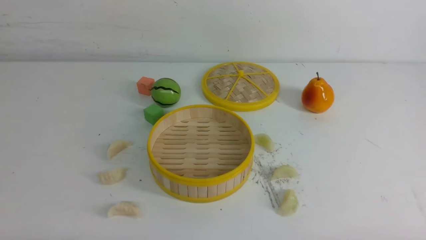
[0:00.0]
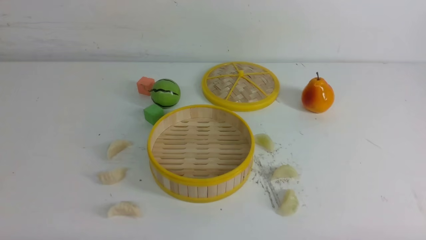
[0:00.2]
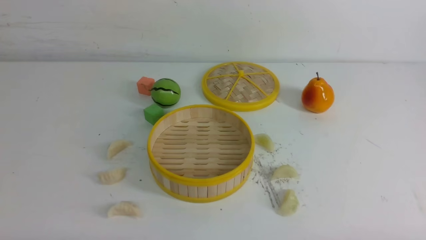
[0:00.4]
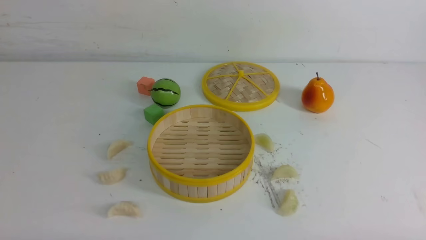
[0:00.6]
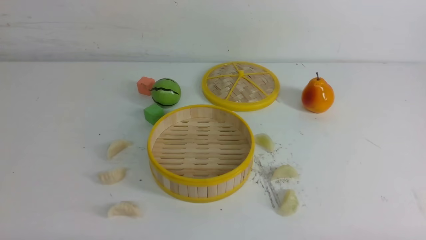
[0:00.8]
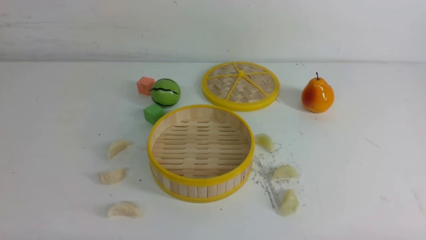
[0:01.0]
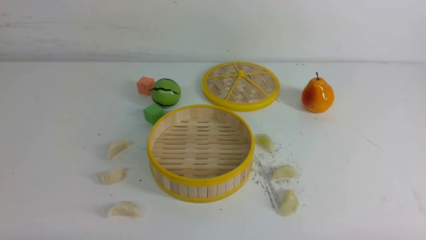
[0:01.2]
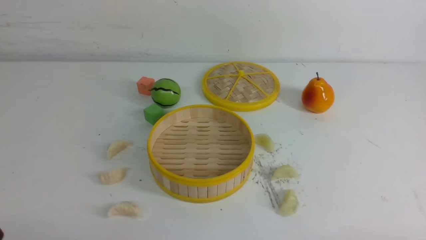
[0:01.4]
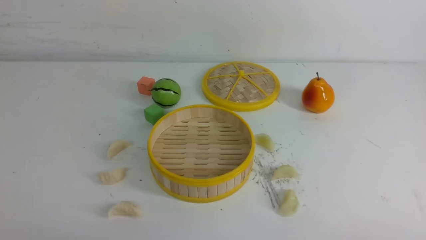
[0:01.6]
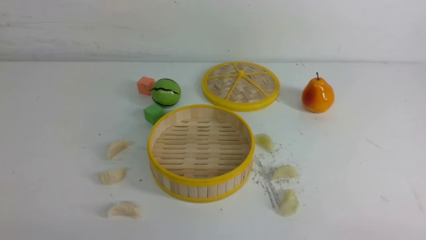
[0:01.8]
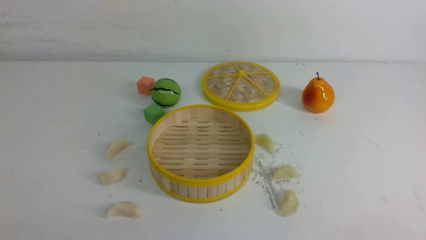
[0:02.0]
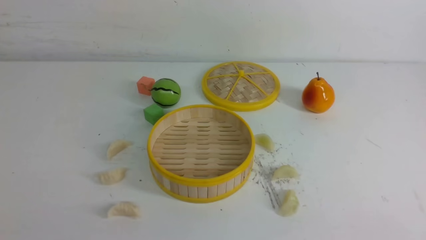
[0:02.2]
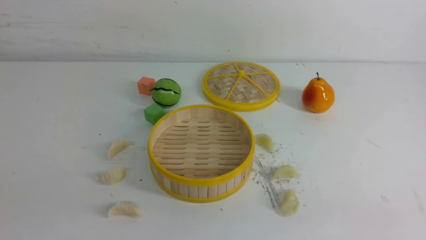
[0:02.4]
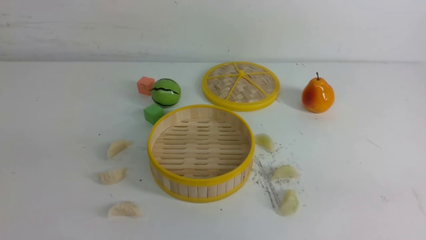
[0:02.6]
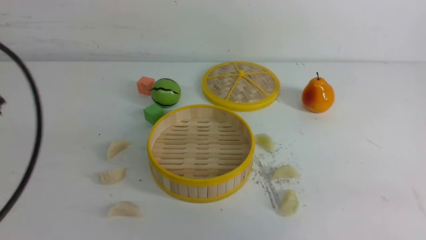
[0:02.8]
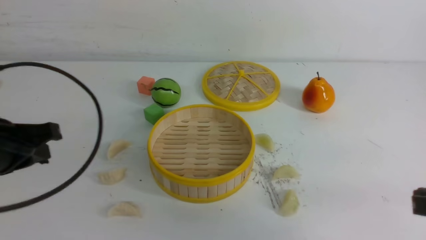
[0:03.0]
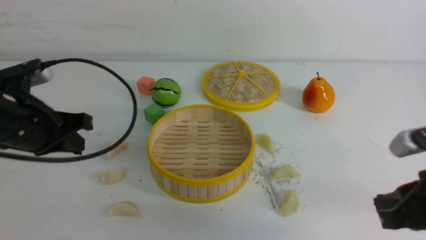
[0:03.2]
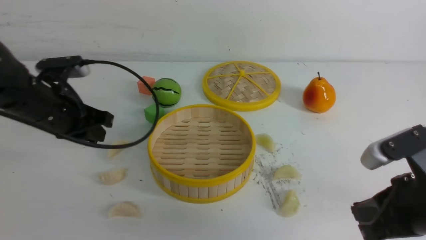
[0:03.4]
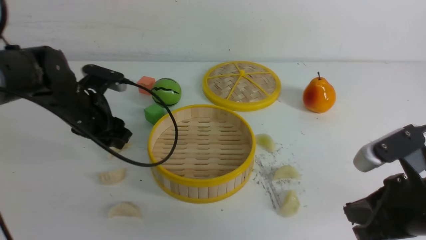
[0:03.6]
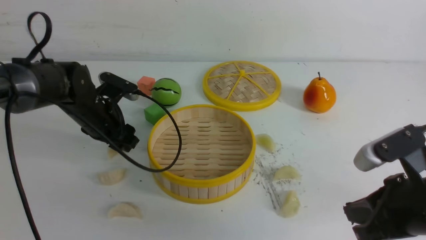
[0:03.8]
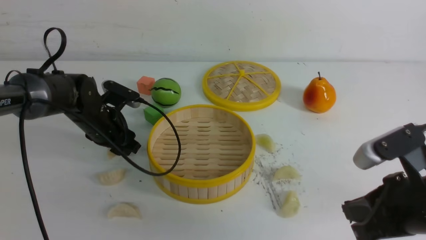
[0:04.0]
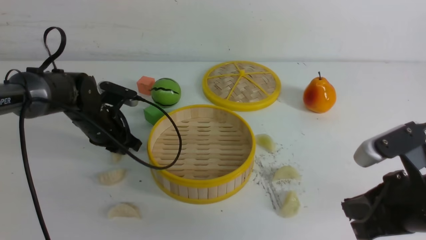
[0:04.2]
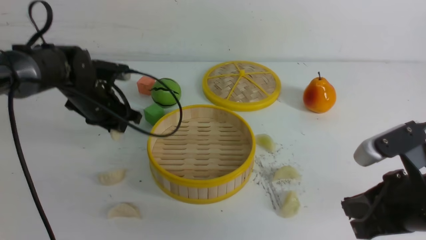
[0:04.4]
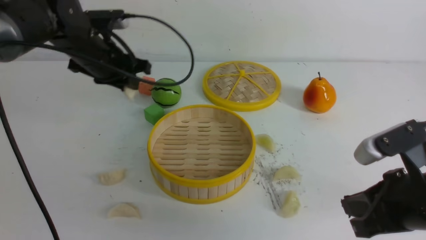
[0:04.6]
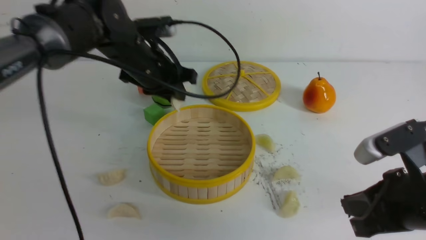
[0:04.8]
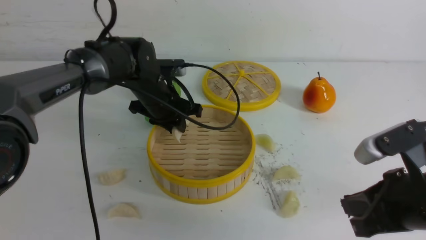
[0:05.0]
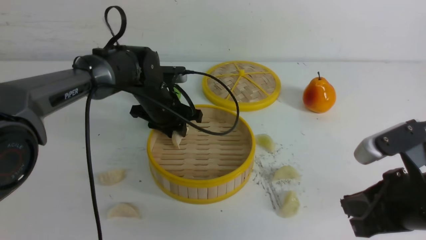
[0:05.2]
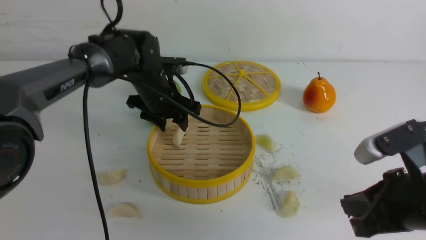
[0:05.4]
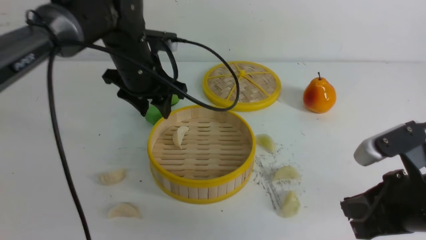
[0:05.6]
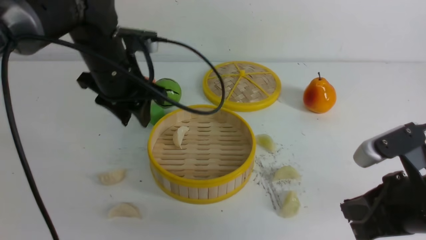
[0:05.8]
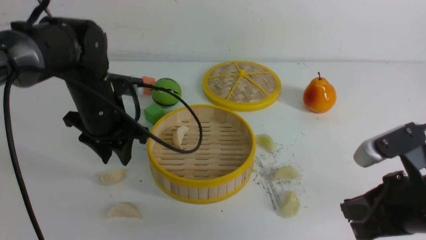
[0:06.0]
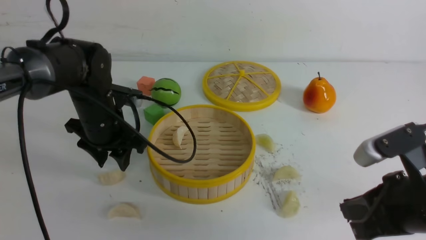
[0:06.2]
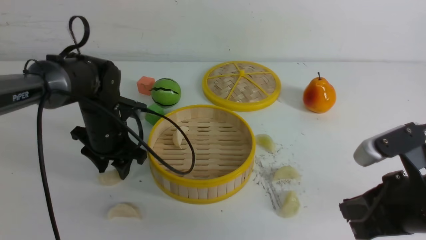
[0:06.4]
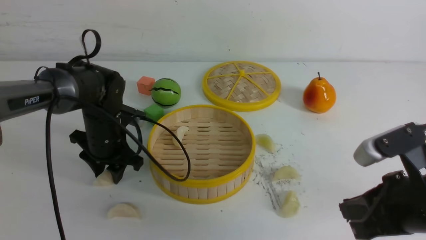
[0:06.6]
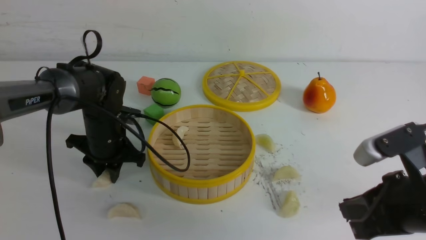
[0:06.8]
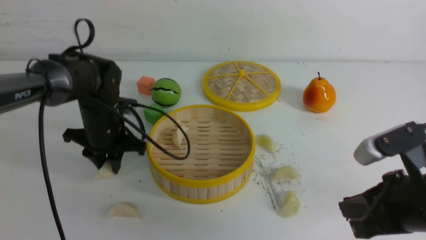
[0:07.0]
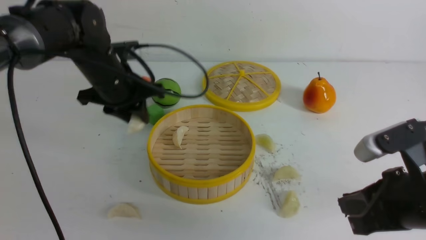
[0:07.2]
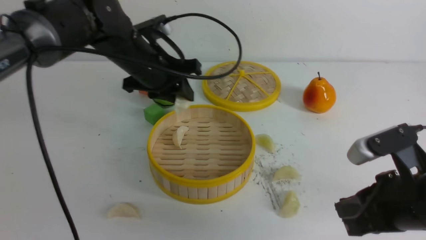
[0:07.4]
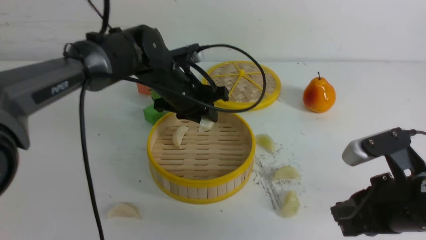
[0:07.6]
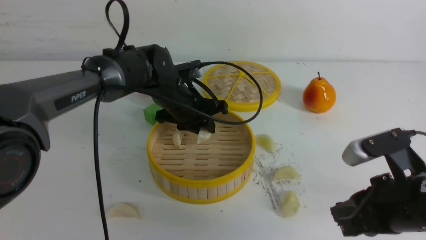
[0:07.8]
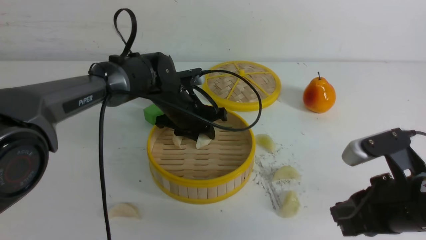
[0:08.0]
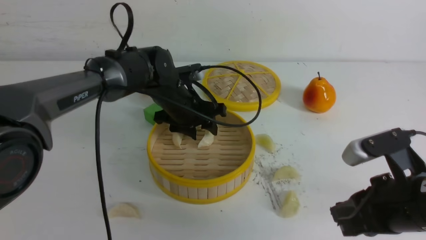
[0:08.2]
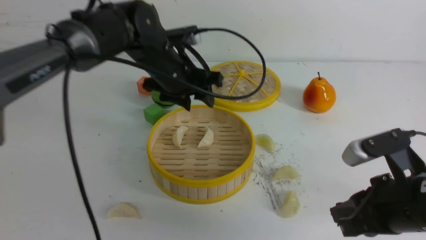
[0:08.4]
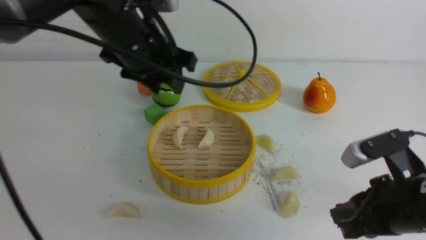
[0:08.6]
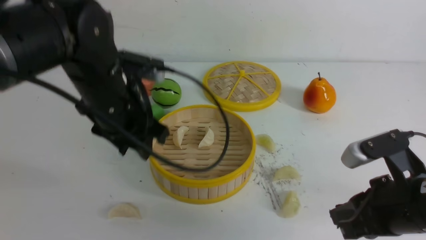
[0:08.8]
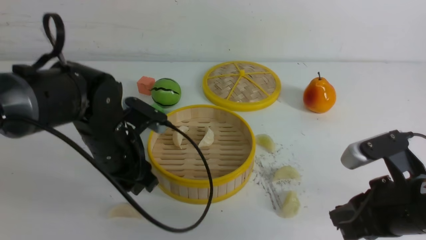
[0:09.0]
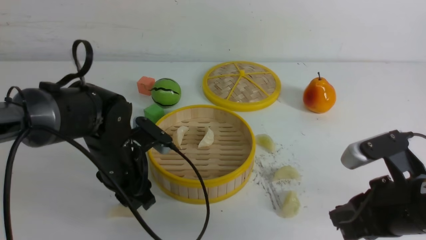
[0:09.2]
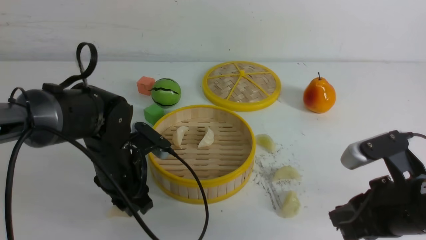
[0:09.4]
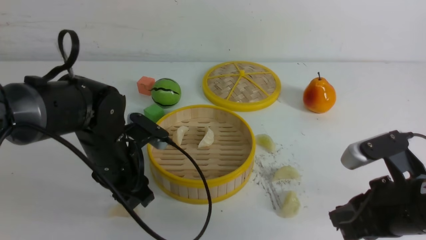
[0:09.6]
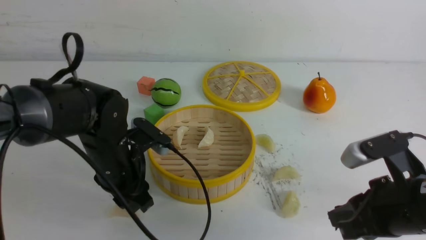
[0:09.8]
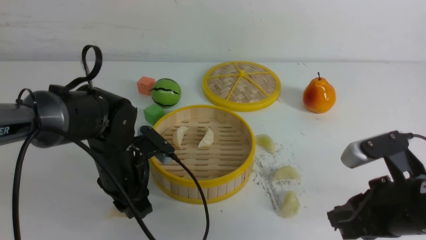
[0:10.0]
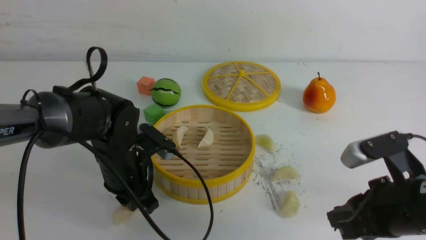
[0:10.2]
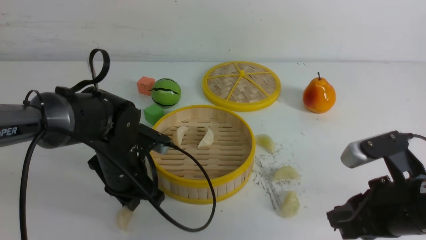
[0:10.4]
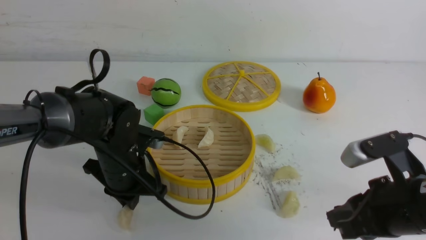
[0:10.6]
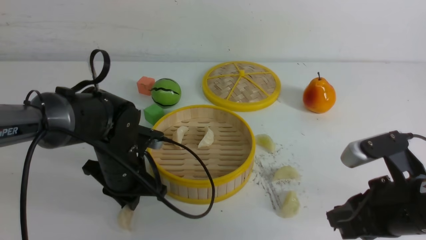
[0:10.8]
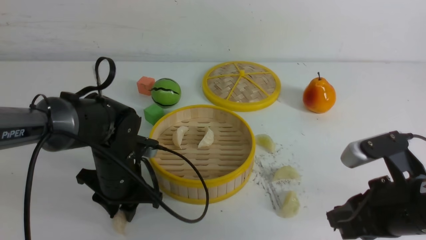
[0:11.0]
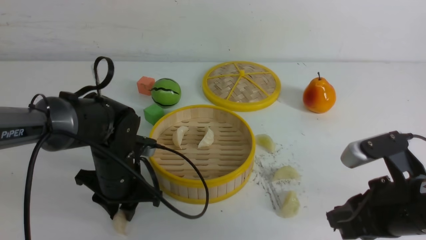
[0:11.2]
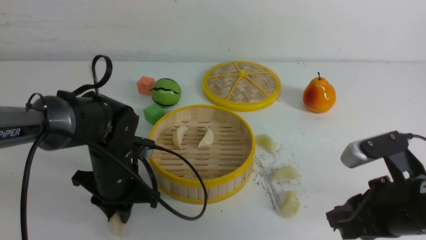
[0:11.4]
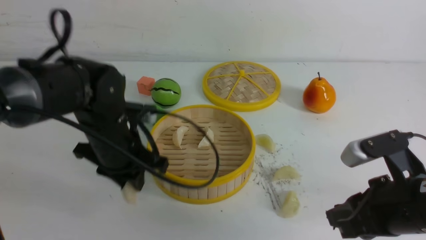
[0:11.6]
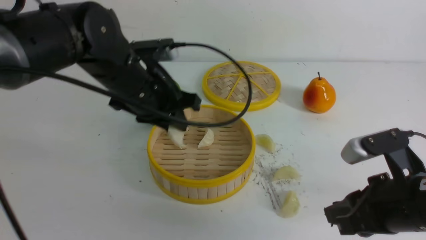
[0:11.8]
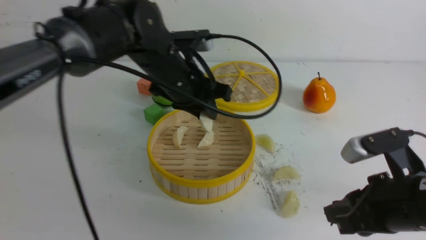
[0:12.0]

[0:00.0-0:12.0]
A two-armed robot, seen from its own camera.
Task of the whole recording: put the dumplings into the steamer on the white table.
Step, 0:00.0 to 0:04.2: use the left arm to grab a dumpling.
Step, 0:04.4 to 0:05.4: use the left arm to put the dumpling into the steamer.
Step, 0:05.8 to 0:07.0: use the left arm to grab a dumpling.
Step, 0:07.2 to 0:08.2: use the left arm to put the dumpling into the steamer.
Step, 0:08.4 to 0:11.4: use the left arm to grab a dumpling.
0:01.6 to 0:03.0: The right gripper goes about 15 cm forward and upward, and closes; the left gripper moves forward and upward, about 20 cm, and closes.
0:03.0 to 0:04.4: The right gripper heads to the left, covering some 5 cm. Meanwhile the left gripper shifts some 20 cm forward, and opens up.
0:04.4 to 0:06.0: The left gripper heads backward, covering about 5 cm, reaches roughly 10 cm to the right, then returns, and opens up.
0:06.0 to 0:07.6: The left gripper shifts about 10 cm to the right, and closes.
0:07.6 to 0:09.0: The left gripper heads backward and to the left, covering approximately 10 cm, and opens its fingers.
0:09.0 to 0:10.4: The left gripper moves downward, some 5 cm, and closes up.
0:10.4 to 0:12.0: The left gripper travels upward, to the right and forward by about 15 cm.

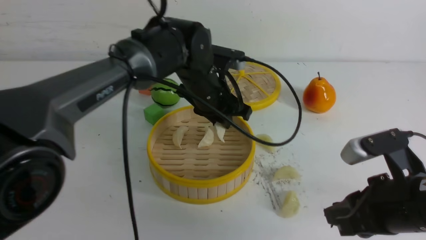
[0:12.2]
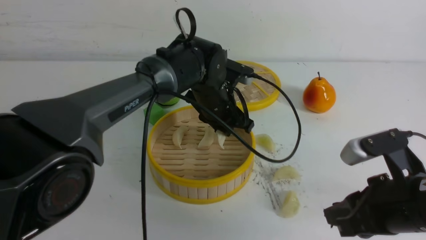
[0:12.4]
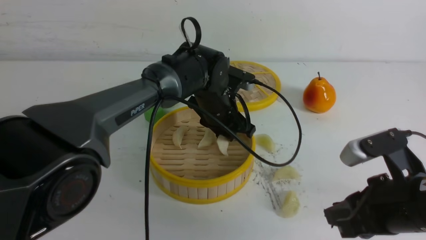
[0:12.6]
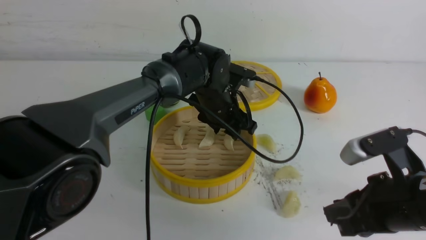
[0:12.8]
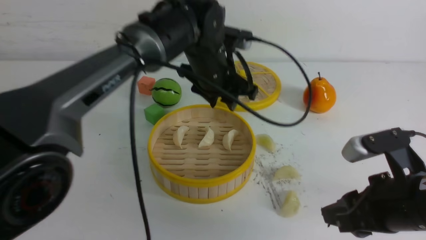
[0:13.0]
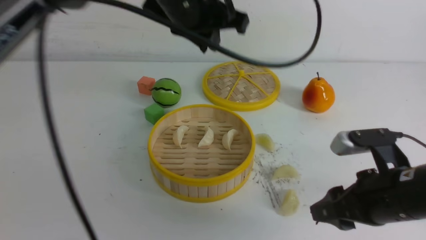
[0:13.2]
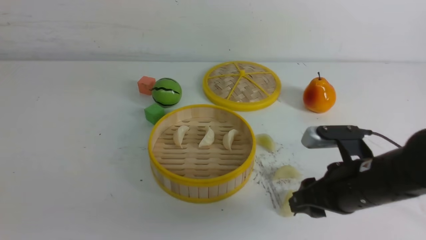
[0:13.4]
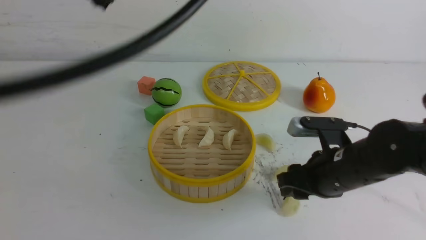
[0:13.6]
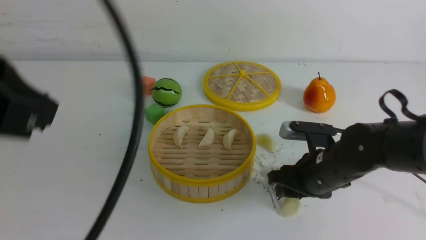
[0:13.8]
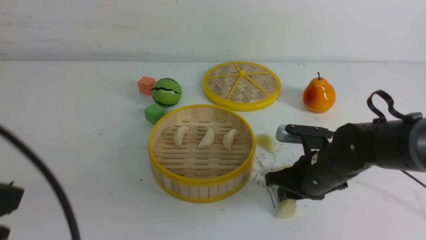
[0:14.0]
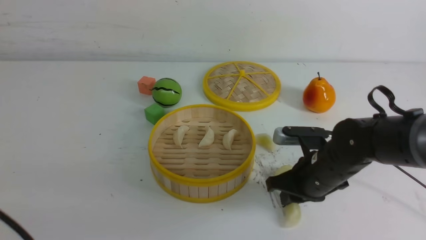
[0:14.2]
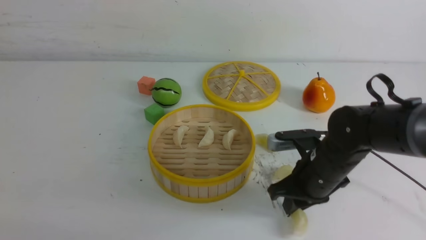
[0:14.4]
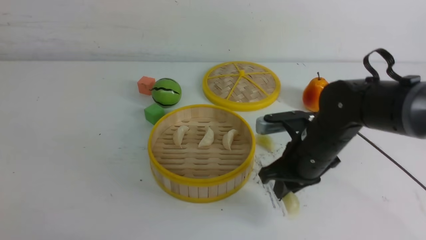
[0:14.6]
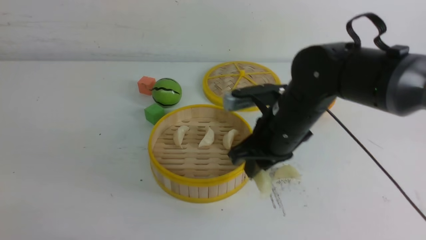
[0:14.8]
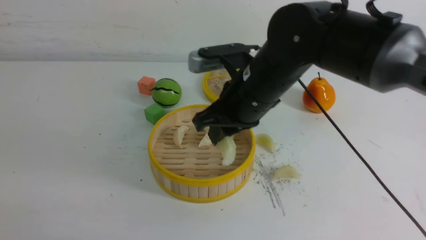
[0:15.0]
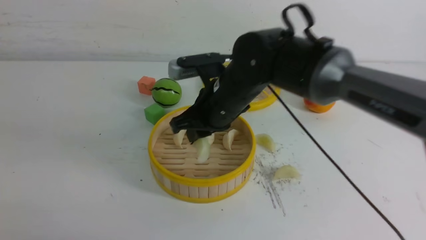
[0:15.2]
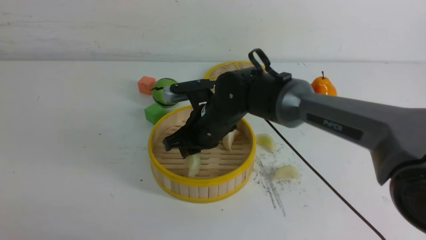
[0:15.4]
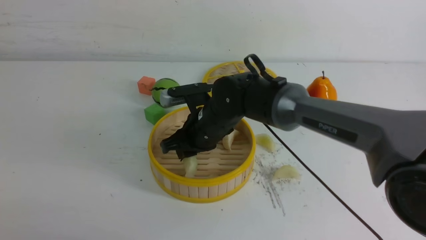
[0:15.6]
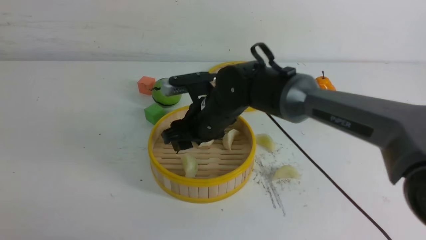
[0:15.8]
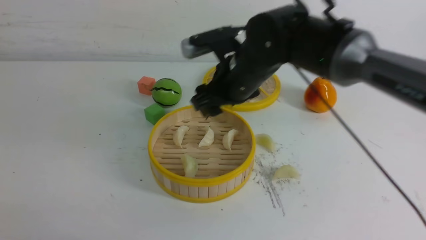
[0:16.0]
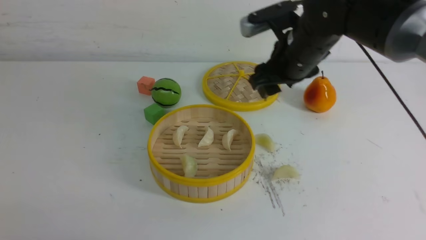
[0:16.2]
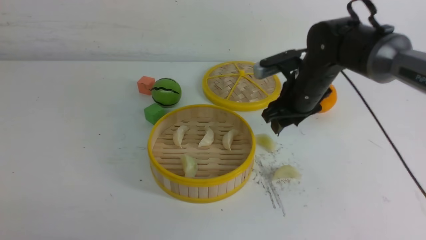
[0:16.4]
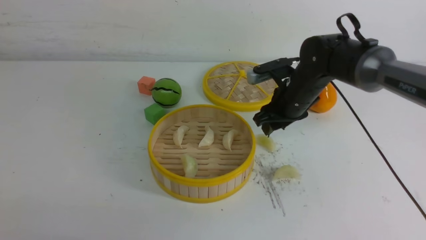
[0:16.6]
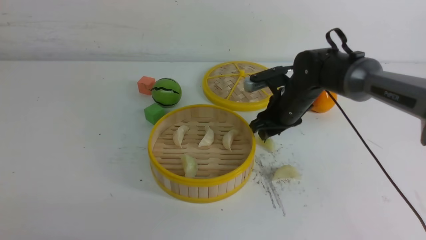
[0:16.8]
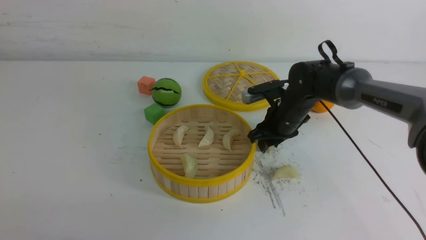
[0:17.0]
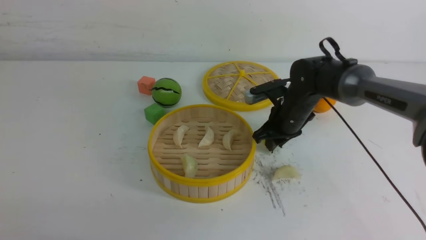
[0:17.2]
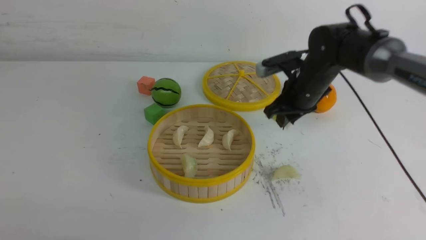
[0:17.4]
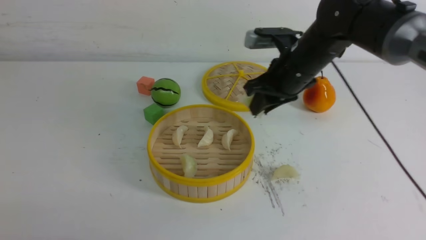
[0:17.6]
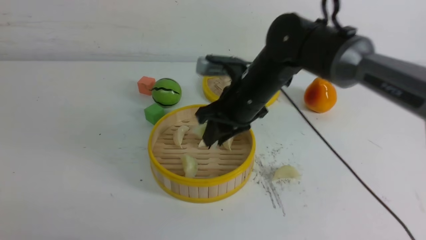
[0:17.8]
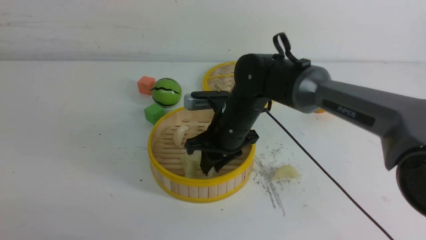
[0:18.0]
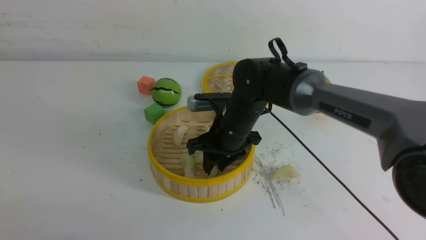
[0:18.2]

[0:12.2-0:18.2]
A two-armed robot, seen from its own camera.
Task of the whole recording: put the dumplings into the steamer on the white table.
Step, 0:12.2 to 0:12.8: use the left arm to put the dumpling into the steamer.
Step, 0:13.2 to 0:14.4: use the right arm to grab a dumpling.
Step, 0:14.6 to 0:15.6: use the right arm to put the dumpling into the steamer.
Step, 0:16.0 to 0:17.2: use the right arm to grab a dumpling.
0:12.2 to 0:13.8: The right gripper heads forward, downward and to the left, covering about 15 cm. The left gripper is displaced backward, upward and to the left by some 40 cm, and closes up.
0:13.8 to 0:15.2: The right gripper is displaced to the left and upward by approximately 20 cm. The left gripper heads downward, backward and to the left, covering some 20 cm.
0:15.2 to 0:16.6: The right gripper goes about 15 cm to the right and forward, and opens its fingers.
0:16.6 to 0:18.2: The right gripper goes some 15 cm to the left and backward.
